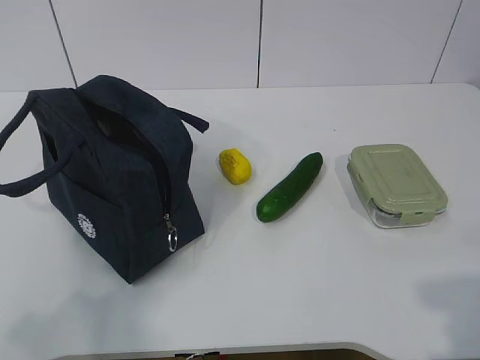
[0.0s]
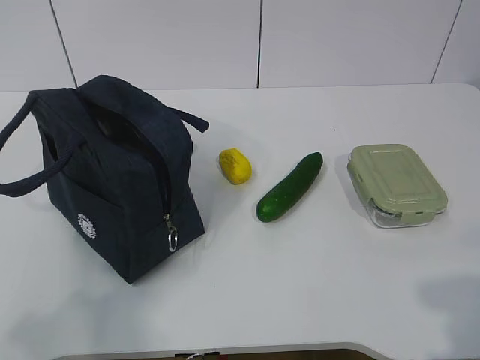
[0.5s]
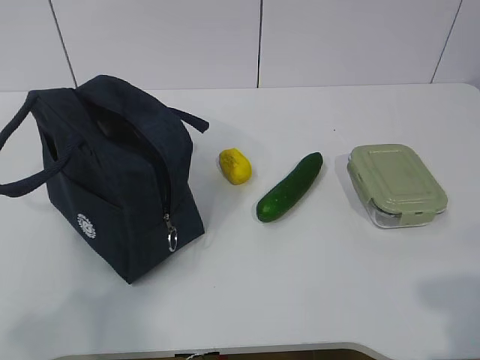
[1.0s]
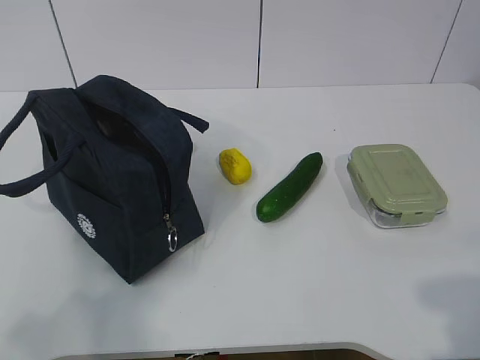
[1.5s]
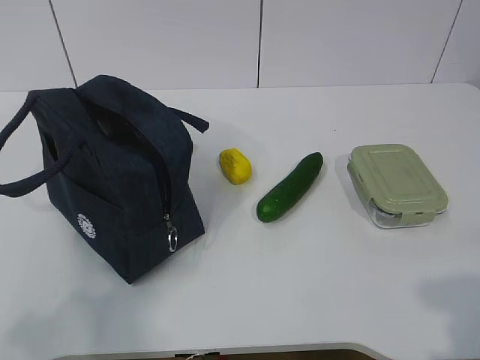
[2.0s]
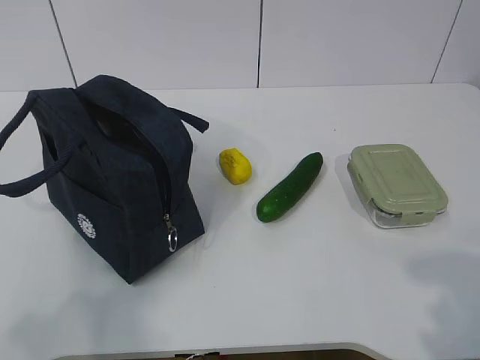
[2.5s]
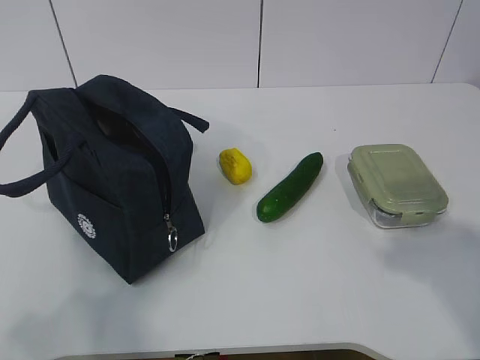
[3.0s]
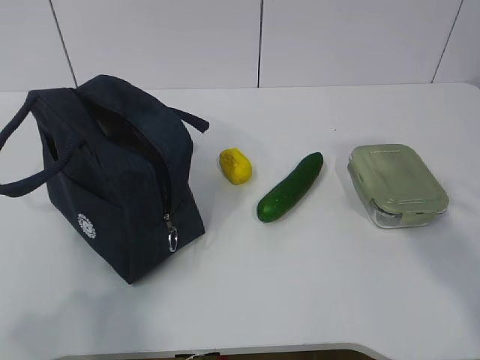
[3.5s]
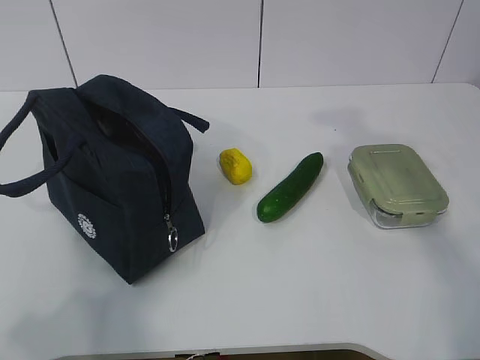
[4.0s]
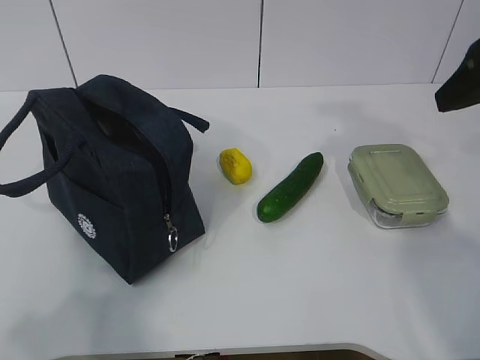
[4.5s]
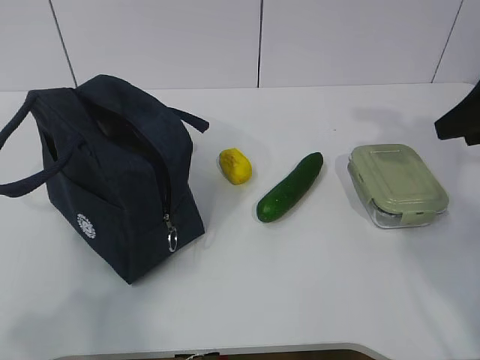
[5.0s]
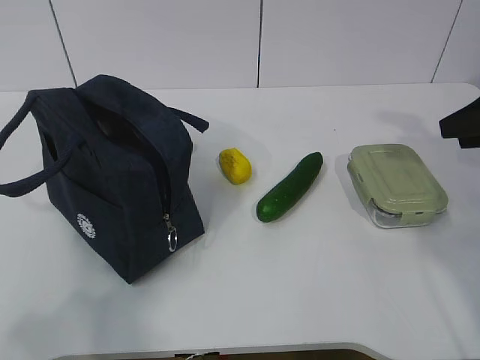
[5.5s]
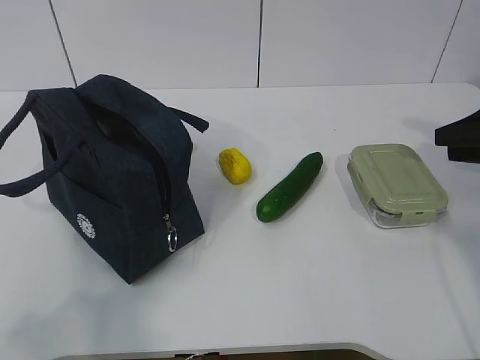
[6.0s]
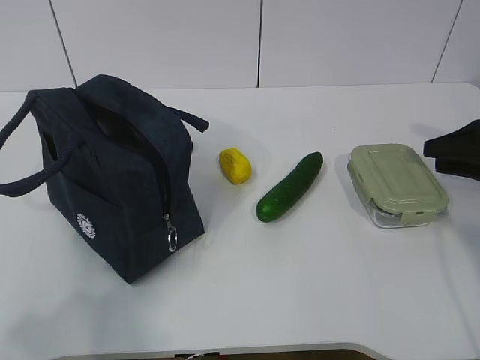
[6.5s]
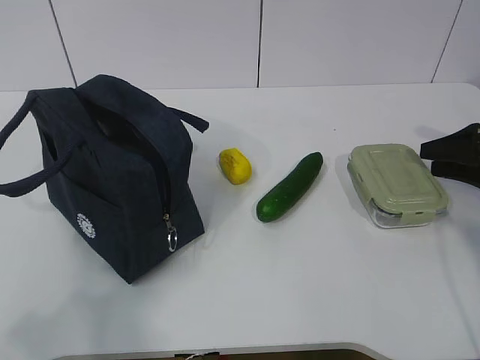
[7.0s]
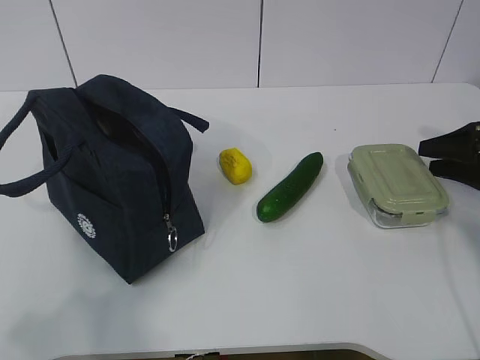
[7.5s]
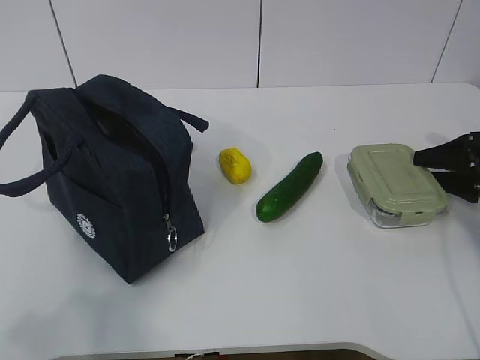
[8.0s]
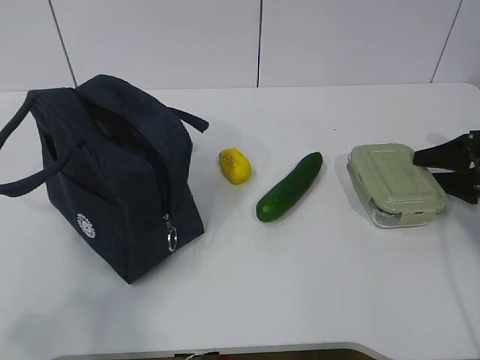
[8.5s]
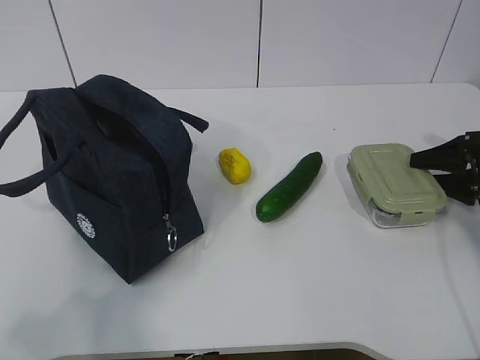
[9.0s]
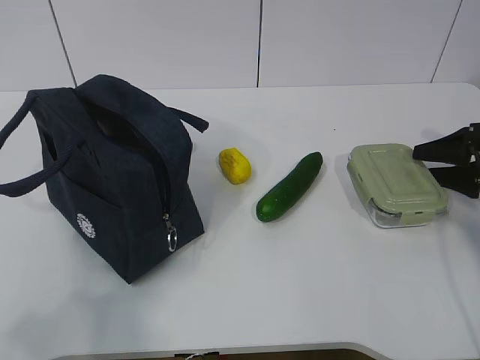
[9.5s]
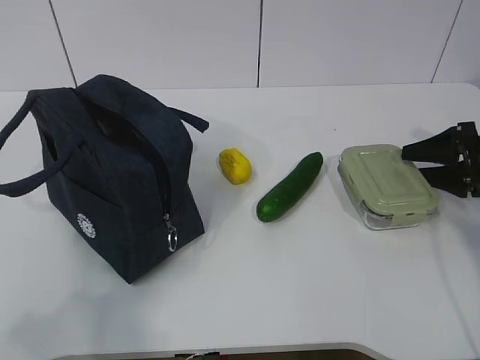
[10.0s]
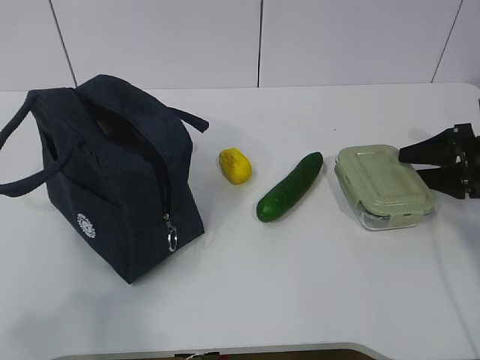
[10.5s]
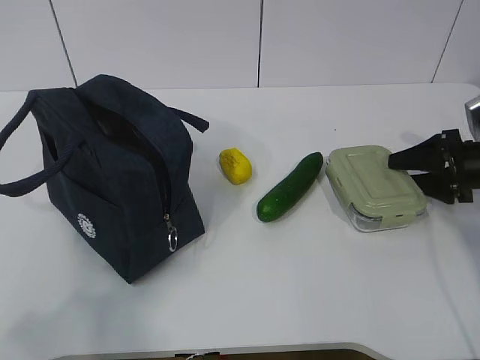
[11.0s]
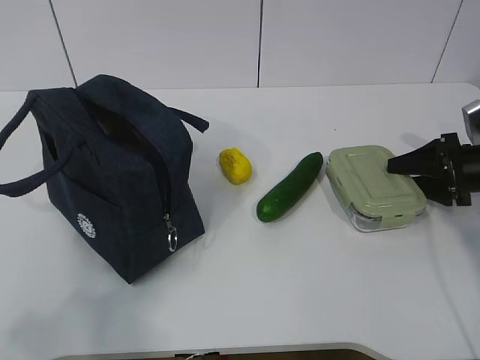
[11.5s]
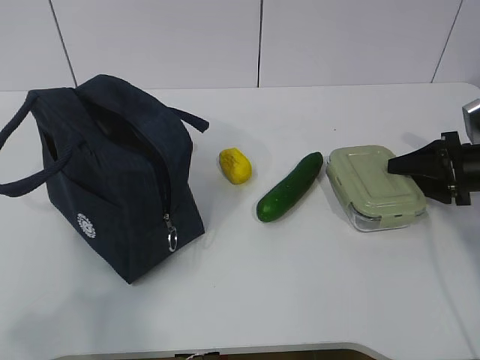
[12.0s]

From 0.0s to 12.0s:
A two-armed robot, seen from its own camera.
Step, from 0.0s to 10.5s: Grab the lunch box with your right hand.
From 2.0s to 4.0s: The right gripper moves forward, approximately 25 cm.
From 4.0s to 6.0s: The right gripper goes roughly 25 cm downward, forward and to the right.
From 6.0s to 8.0s: The right gripper travels downward by about 5 cm.
From 8.0s to 12.0s: The grippers stay close to where they were, moving slightly.

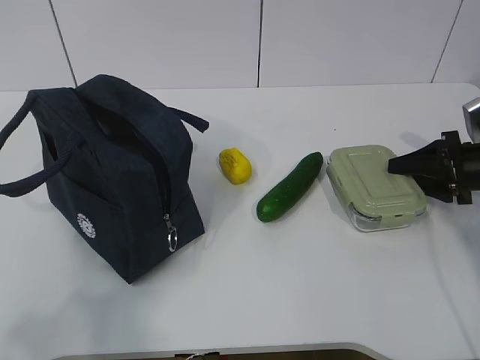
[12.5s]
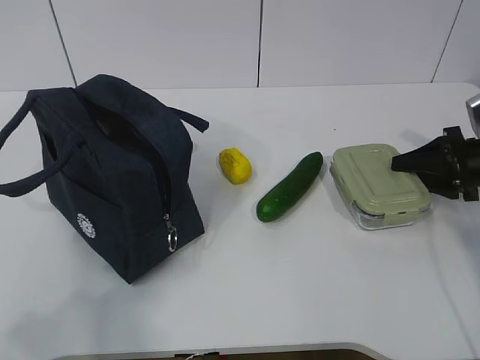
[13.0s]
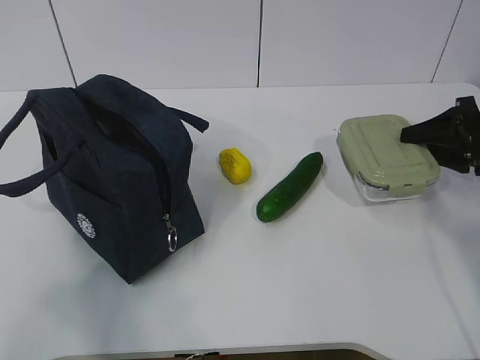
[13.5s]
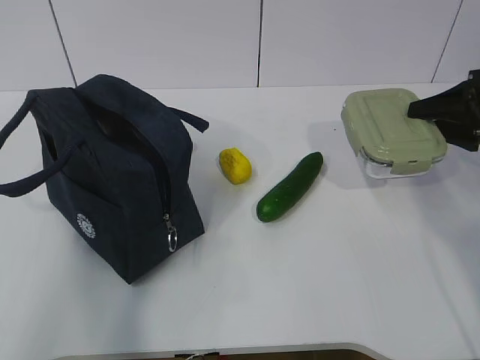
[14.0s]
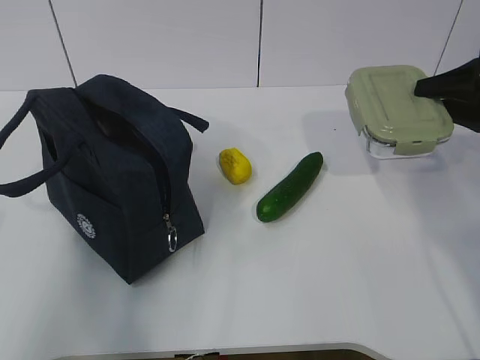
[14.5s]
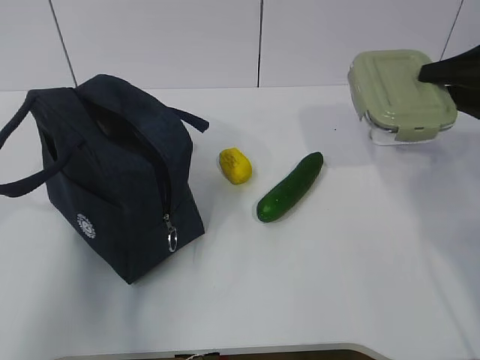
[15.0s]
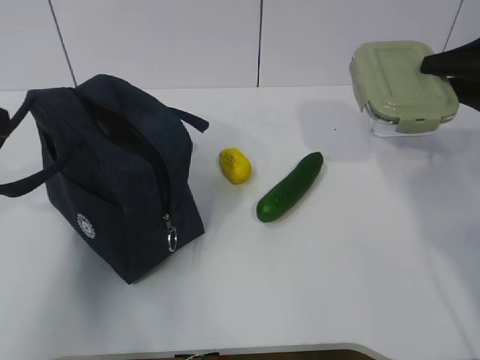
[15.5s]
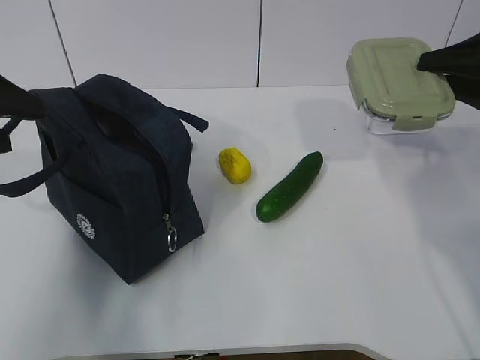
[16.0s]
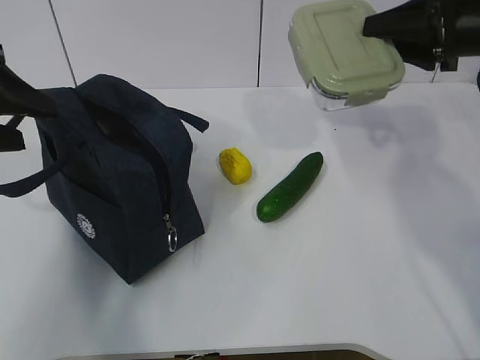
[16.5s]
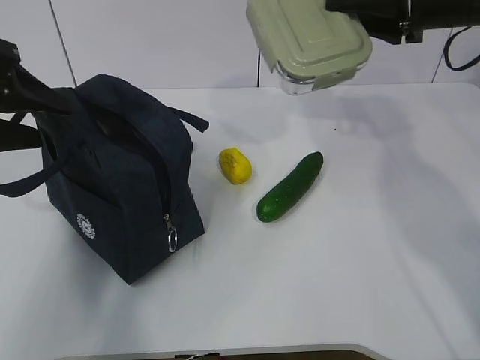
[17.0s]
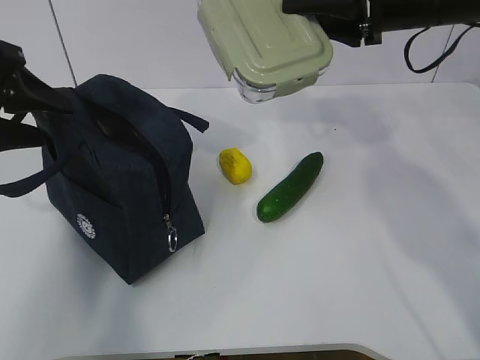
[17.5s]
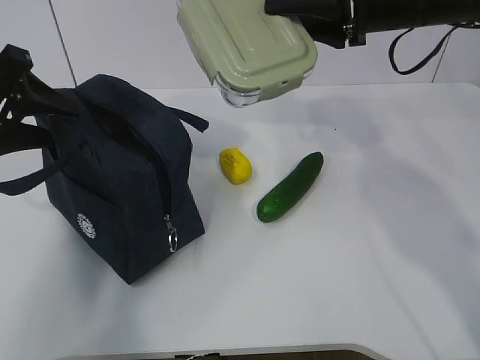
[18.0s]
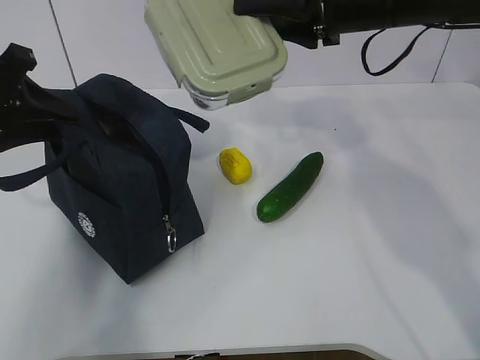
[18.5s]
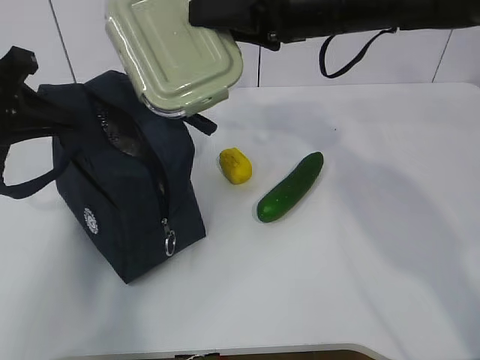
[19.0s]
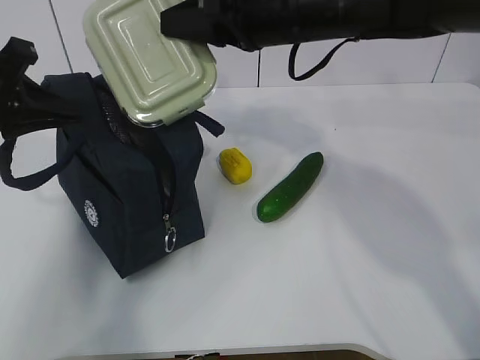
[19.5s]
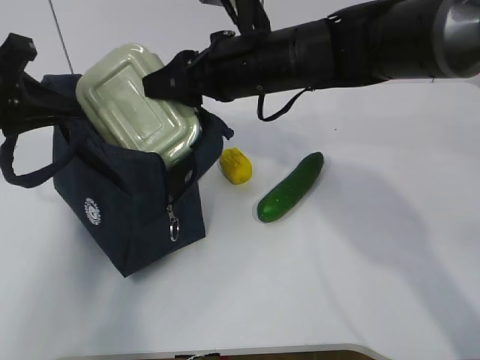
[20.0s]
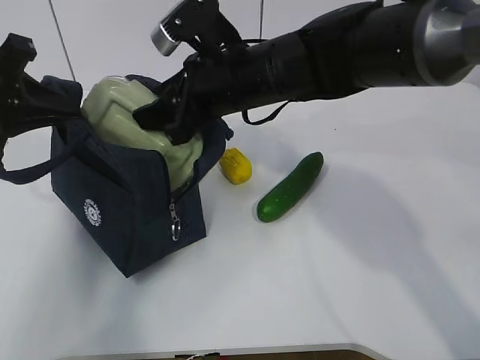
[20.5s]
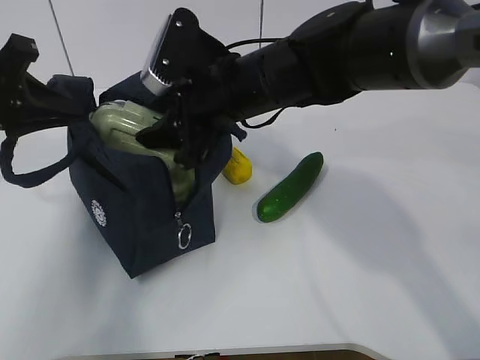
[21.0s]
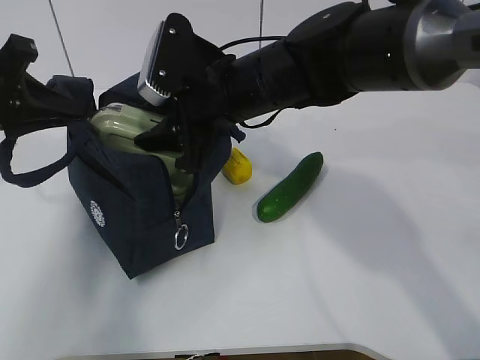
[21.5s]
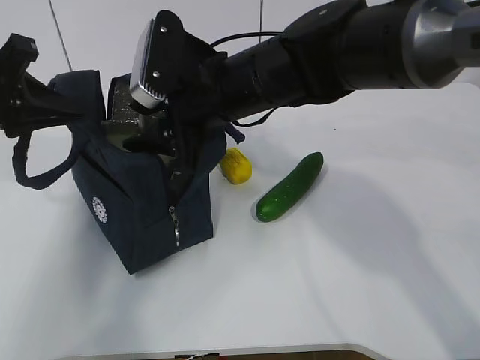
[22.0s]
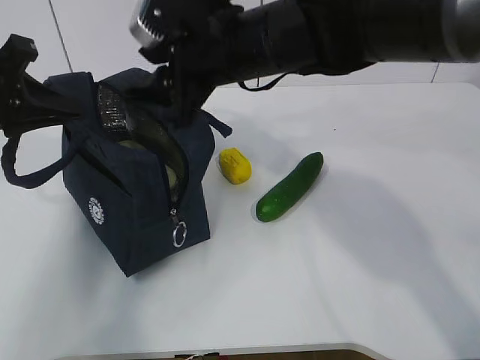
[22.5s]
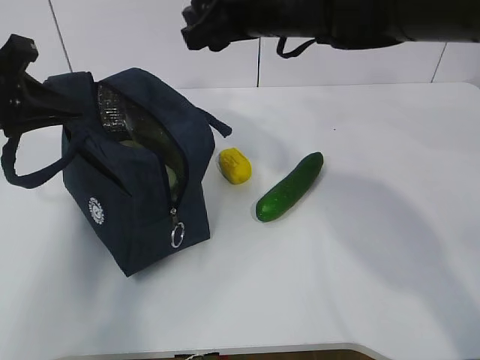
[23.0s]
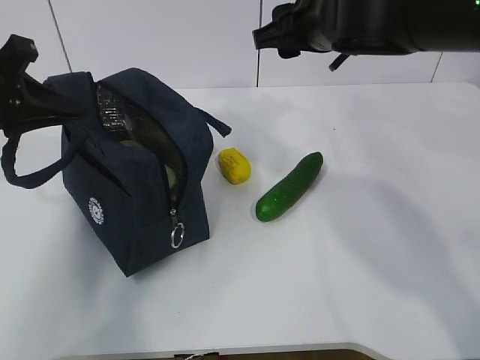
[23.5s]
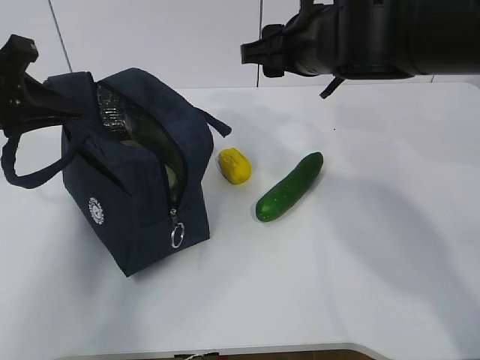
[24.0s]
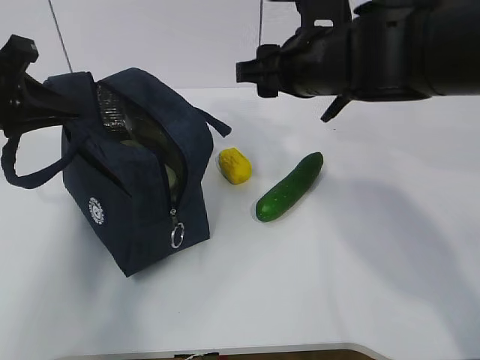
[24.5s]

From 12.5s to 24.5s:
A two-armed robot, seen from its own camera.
Step, from 12.5s to 16.0s: Grab the lunch bag with your left hand.
Step, from 16.5s to 18.0s: Place it into the bag with your right hand.
From 12.5s to 14.5s: The left gripper travels forward and upward by roughly 10 cm, while the right gripper goes about 10 cm upward.
From 14.5s to 16.5s: The left gripper shifts roughly 15 cm forward, and opens up, while the right gripper travels to the left and upward by some 10 cm.
From 16.5s to 18.5s: The left gripper closes its fingers; the right gripper moves to the left, roughly 15 cm.
From 18.5s to 20.5s: The right gripper is displaced to the left and downward by roughly 15 cm. The left gripper closes its fingers.
From 22.5s to 24.5s: The right gripper travels to the right by about 5 cm.

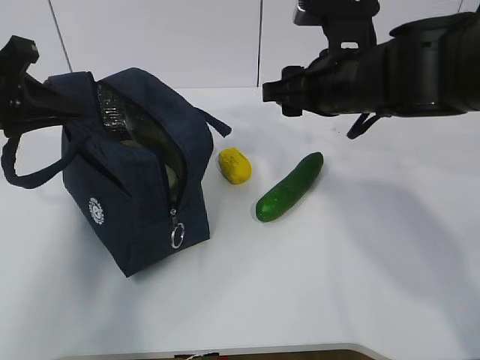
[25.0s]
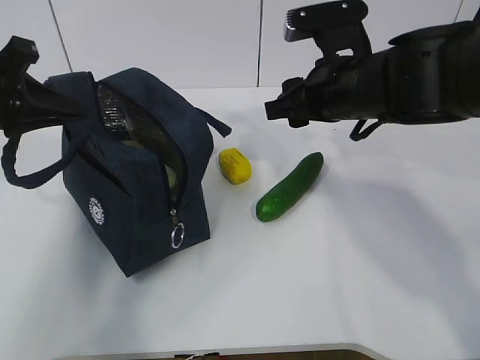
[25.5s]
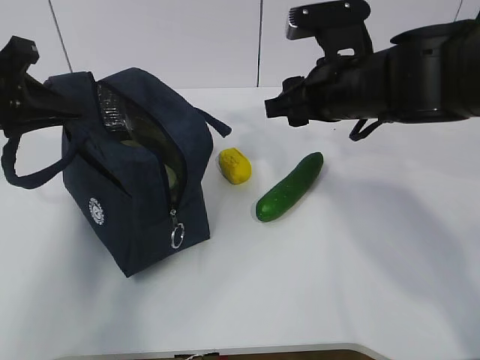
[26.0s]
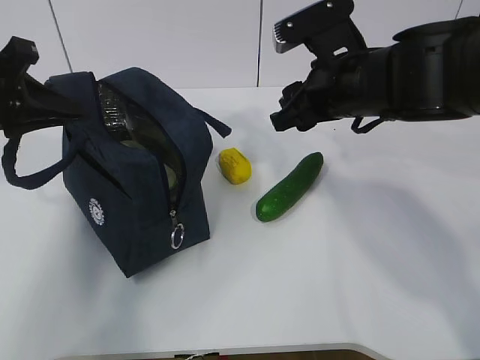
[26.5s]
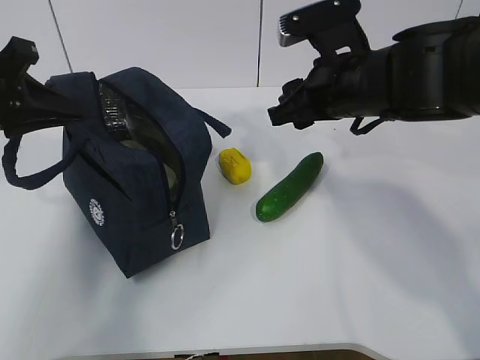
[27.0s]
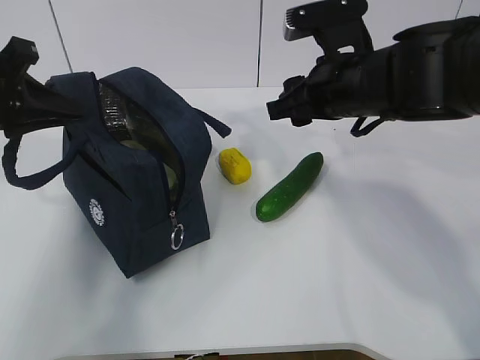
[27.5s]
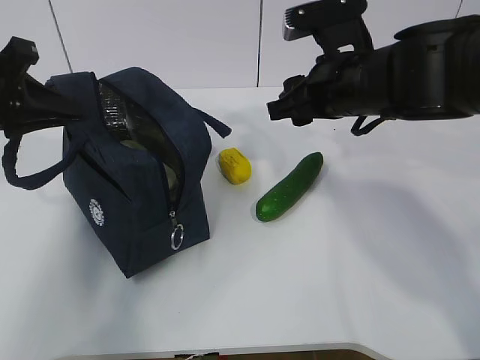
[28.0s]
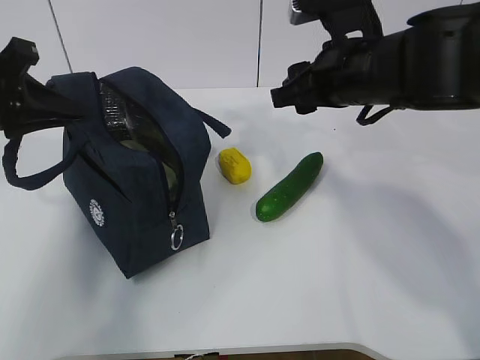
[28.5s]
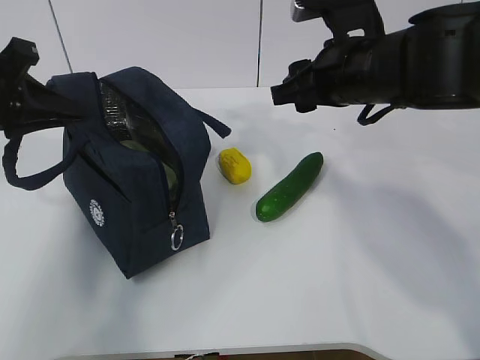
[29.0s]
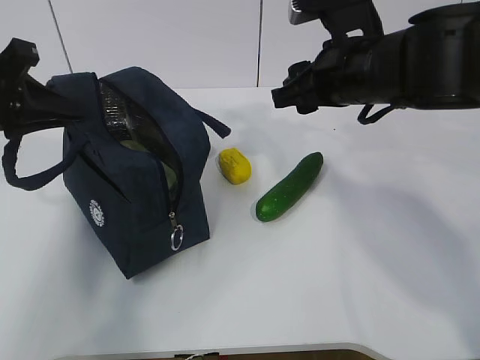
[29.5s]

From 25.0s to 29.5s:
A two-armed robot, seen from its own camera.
From 27.0s to 29.5s: The grippers make only small movements.
